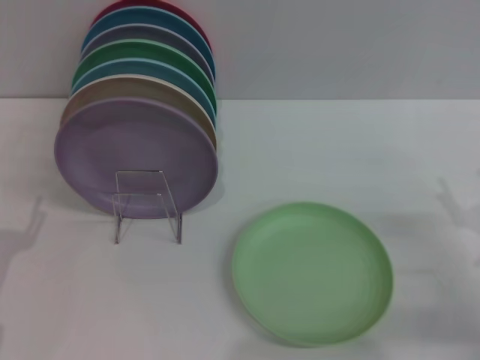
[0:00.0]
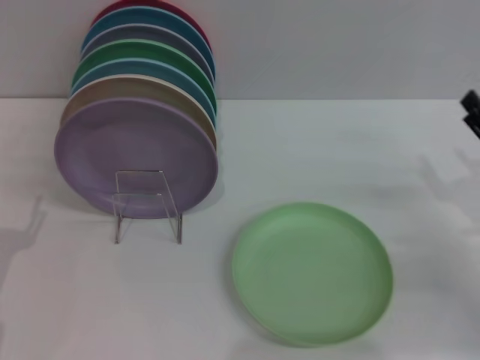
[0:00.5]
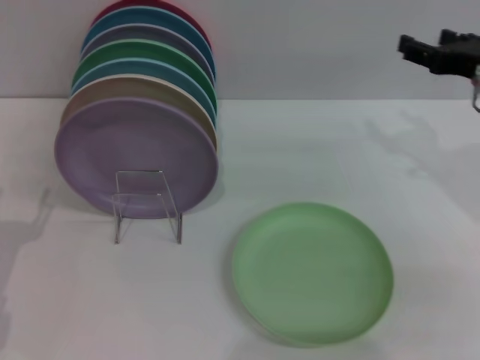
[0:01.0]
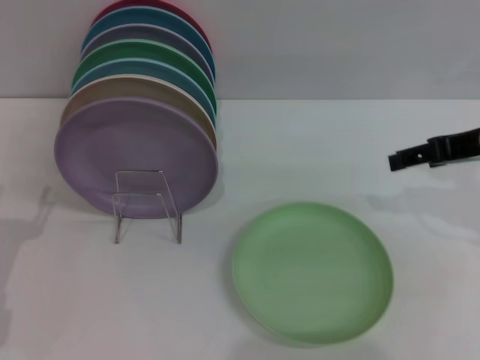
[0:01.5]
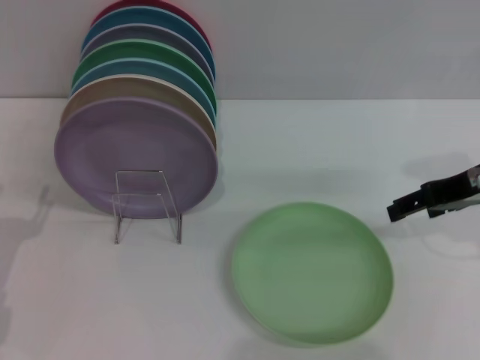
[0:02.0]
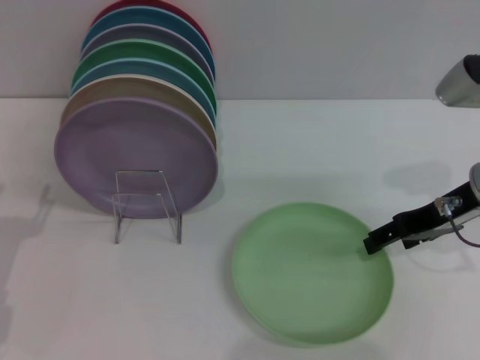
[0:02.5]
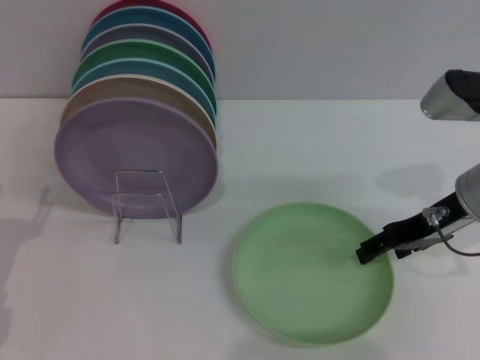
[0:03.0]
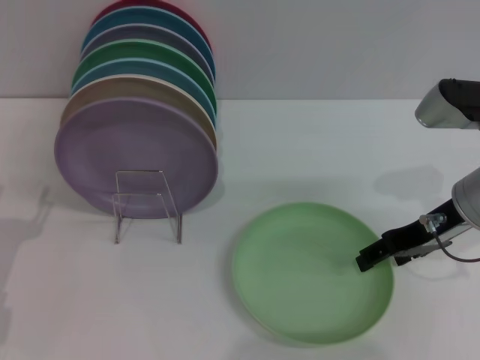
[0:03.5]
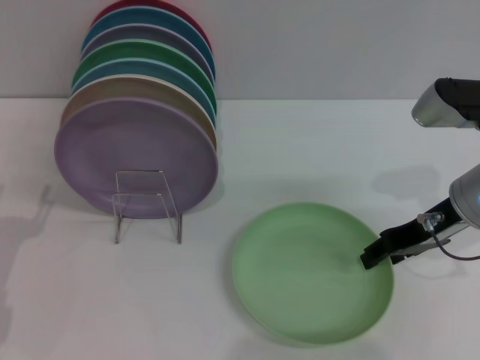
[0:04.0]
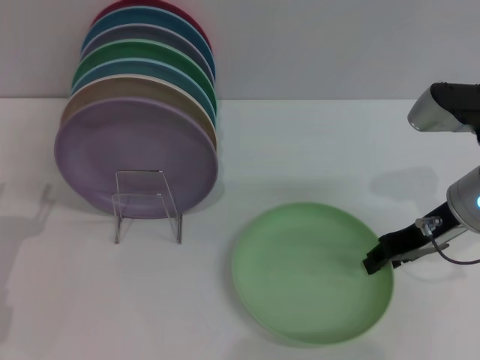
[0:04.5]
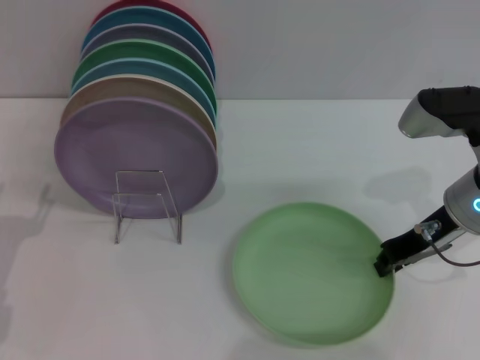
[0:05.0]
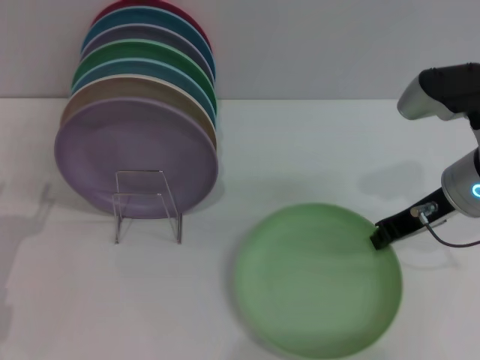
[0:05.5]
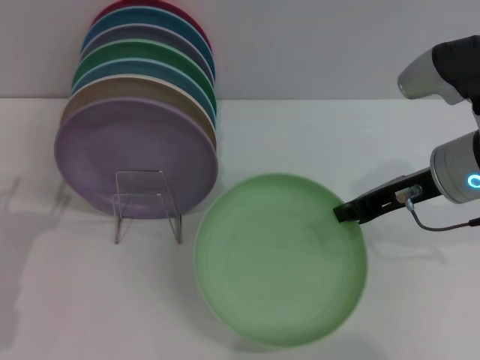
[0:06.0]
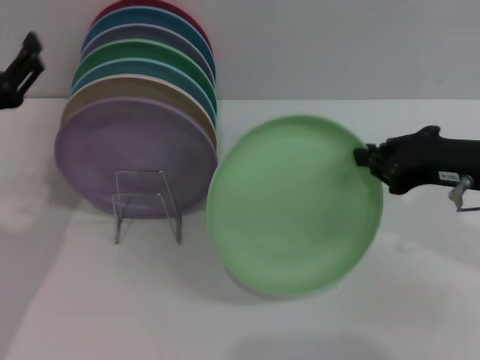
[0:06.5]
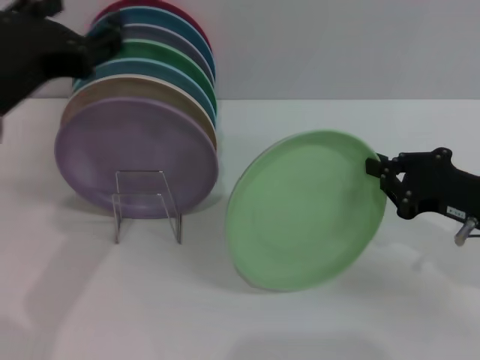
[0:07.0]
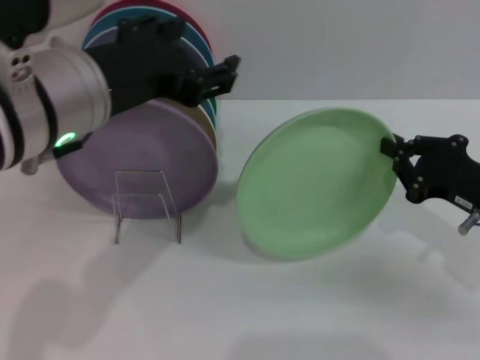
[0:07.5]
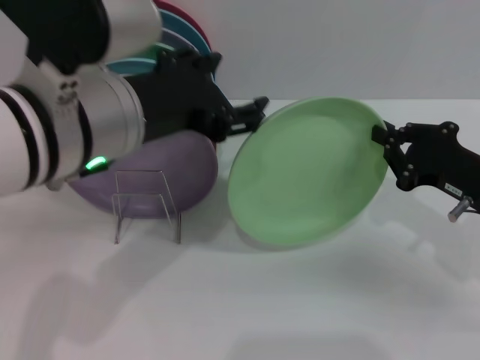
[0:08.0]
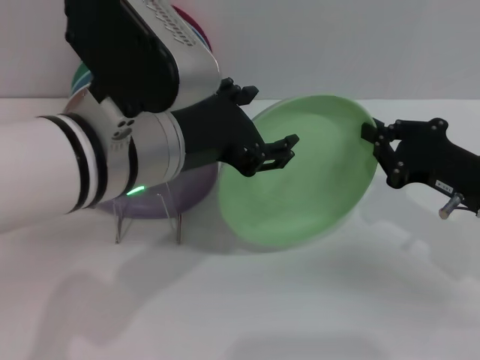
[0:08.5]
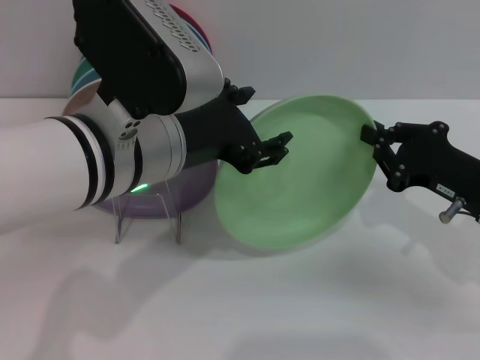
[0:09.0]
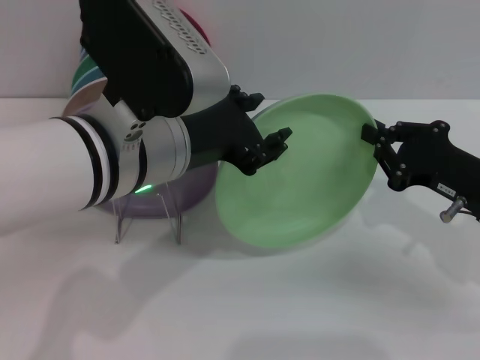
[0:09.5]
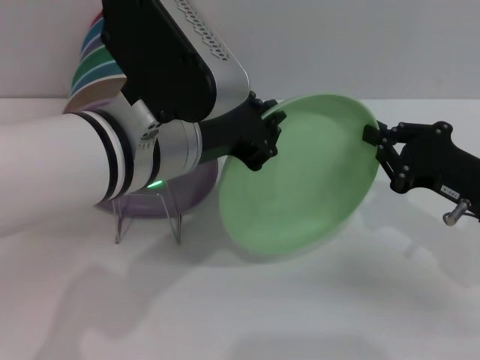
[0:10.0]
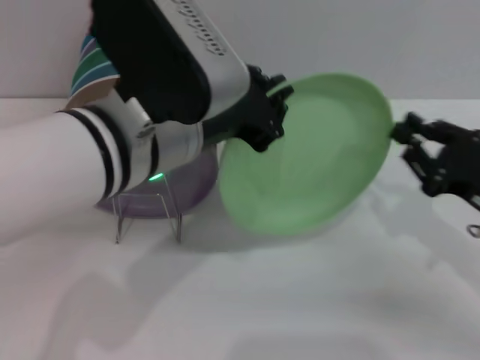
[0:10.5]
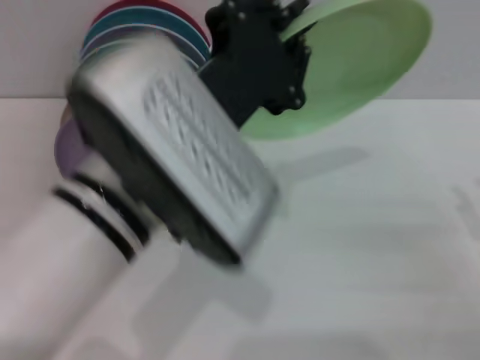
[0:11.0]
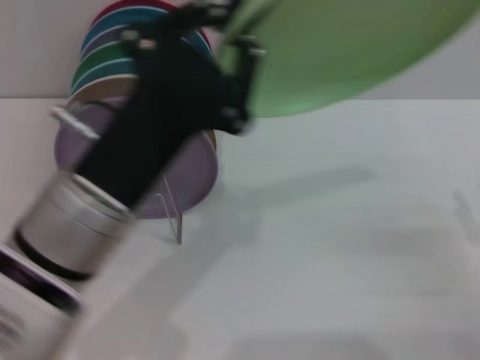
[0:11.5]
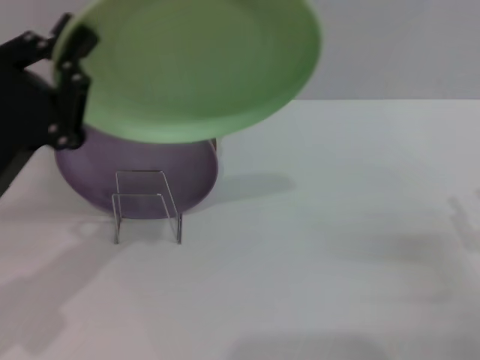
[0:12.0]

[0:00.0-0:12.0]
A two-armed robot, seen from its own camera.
Task of the whole recording: Grip the plate with one hand, pass it to the other, then set it on the shelf.
Step, 0:00.0 to 0:07.0: Pick up the plate with the right gripper.
Step, 0:07.5 to 0:10.5: Pass the plate from the right gripper to the left gripper.
0:00.0 to 0:02.0: The right gripper goes roughly 15 cm upward and forward.
0:02.0 to 0:04.0: The right gripper is displaced downward by about 5 cm.
0:04.0 to 0:06.0: The right gripper closes.
0:06.0 to 0:08.0: The left gripper is displaced upward and to the right by approximately 25 cm. The right gripper heads downward and to the right, covering about 10 cm.
0:08.0 to 0:10.0: The left gripper closes up.
0:10.0 to 0:12.0: The right gripper moves backward and to the right, about 10 cm, and opens up, while the left gripper travels to the left and downward by about 20 cm.

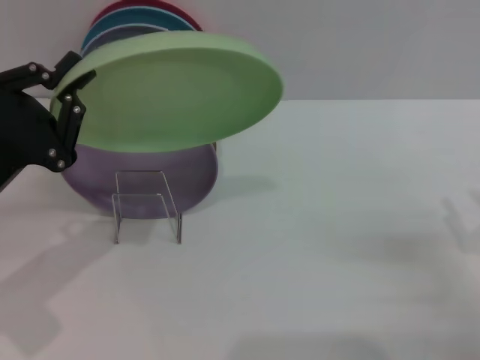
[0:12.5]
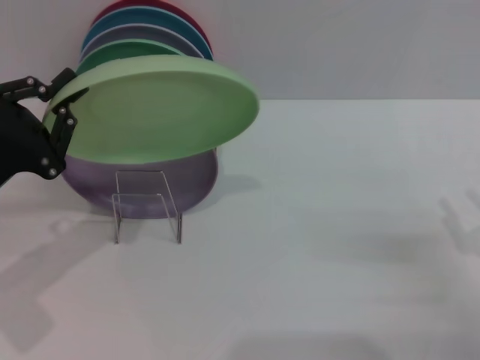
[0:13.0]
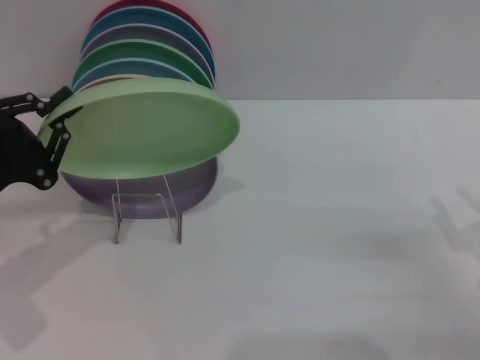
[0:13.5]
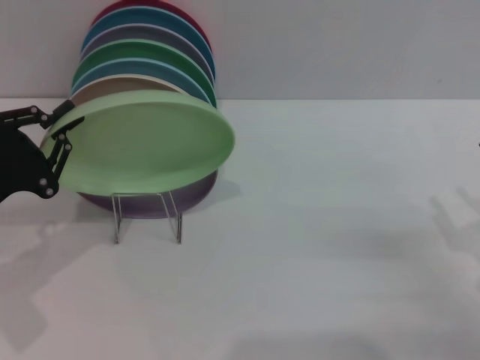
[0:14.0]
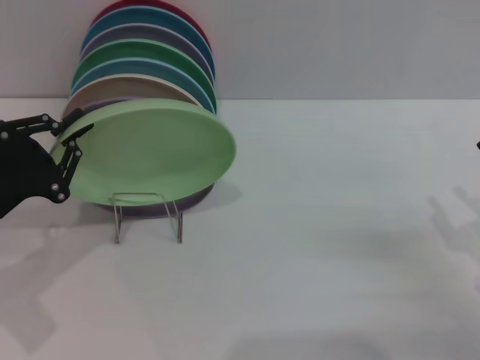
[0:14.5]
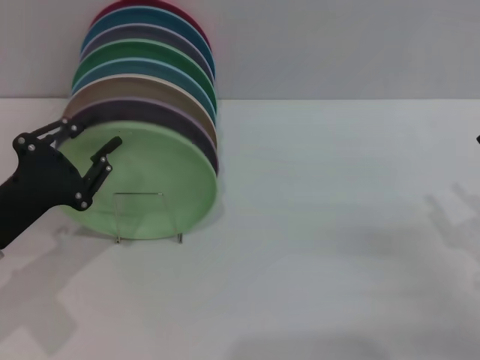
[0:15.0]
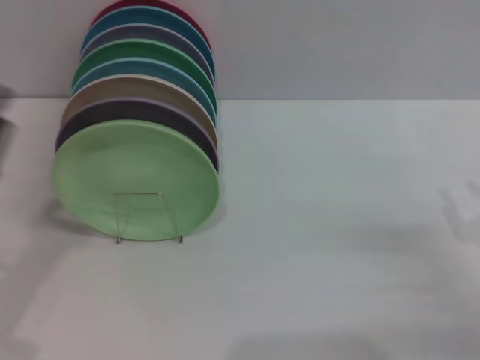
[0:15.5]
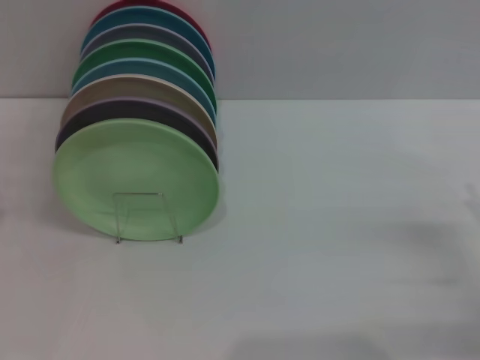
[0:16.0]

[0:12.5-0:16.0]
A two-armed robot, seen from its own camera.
Task of the whole recording: Grip the plate with one hand, pass it to the other, then set it on the shelf.
Step, 0:12.5 to 0:15.0: Place the plate on the shelf with the left gripper.
0:12.5 to 0:14.5: There are only small adjustments of the grippers.
0:14.5 to 0:16.0: The left gripper moves backward, roughly 5 cm, and opens up.

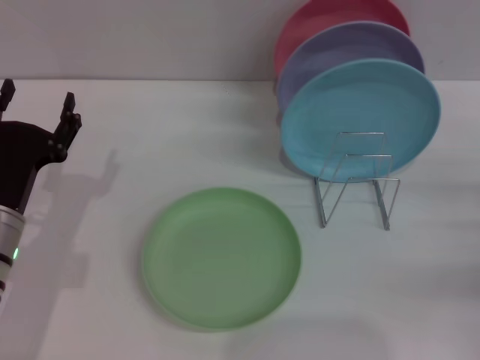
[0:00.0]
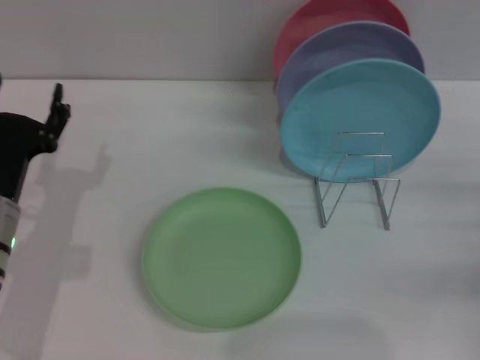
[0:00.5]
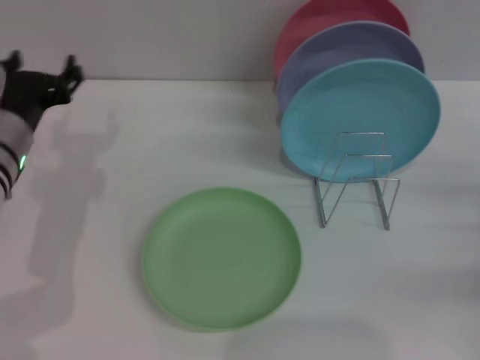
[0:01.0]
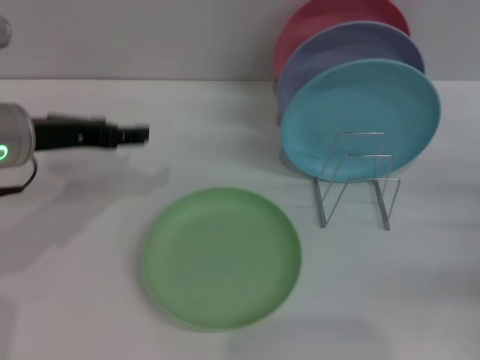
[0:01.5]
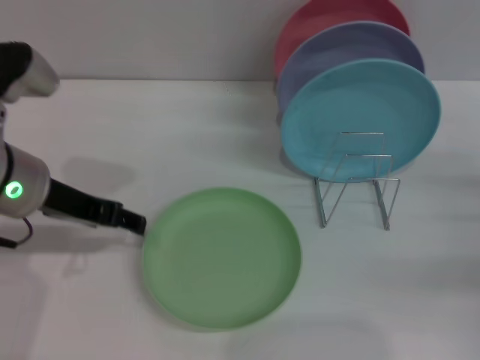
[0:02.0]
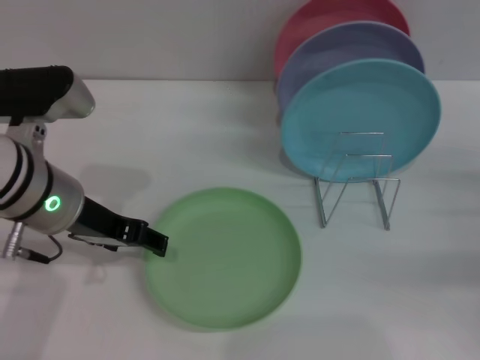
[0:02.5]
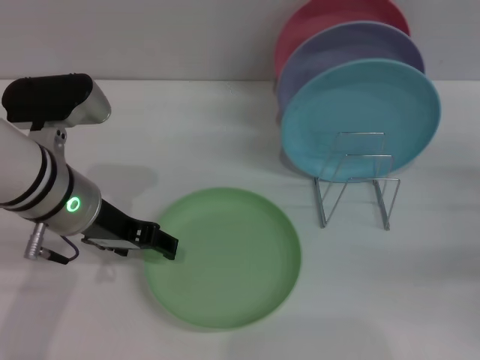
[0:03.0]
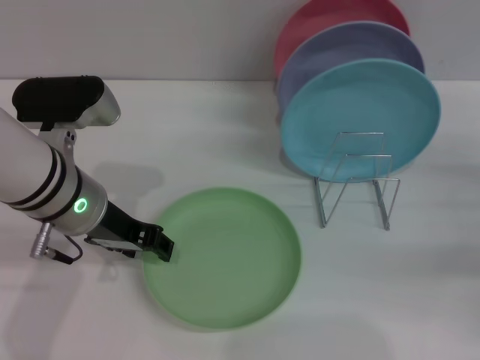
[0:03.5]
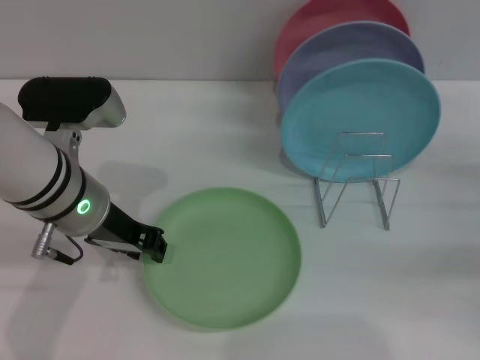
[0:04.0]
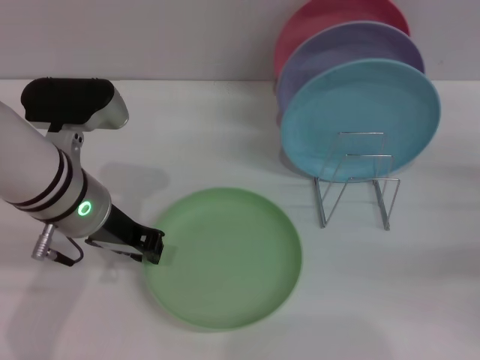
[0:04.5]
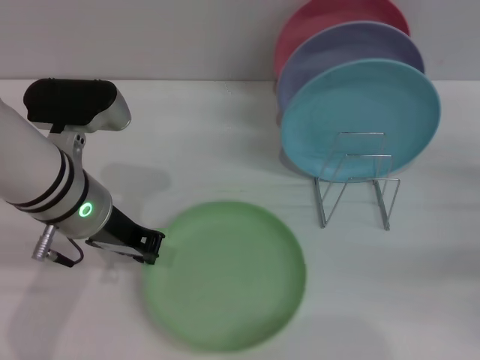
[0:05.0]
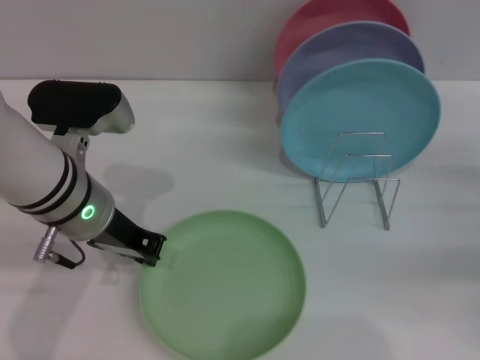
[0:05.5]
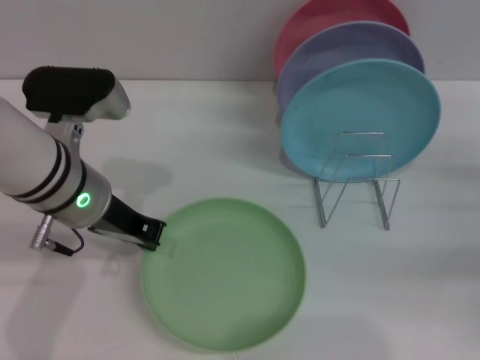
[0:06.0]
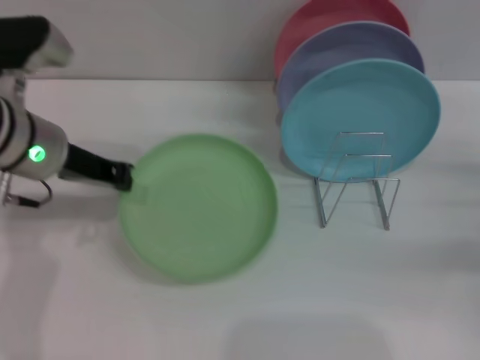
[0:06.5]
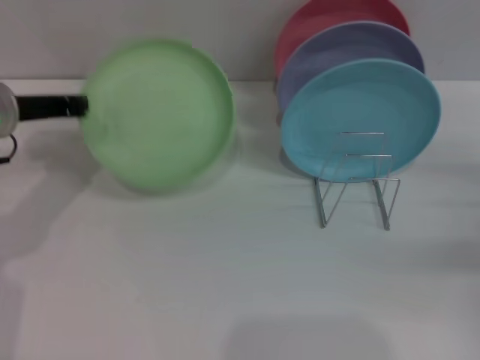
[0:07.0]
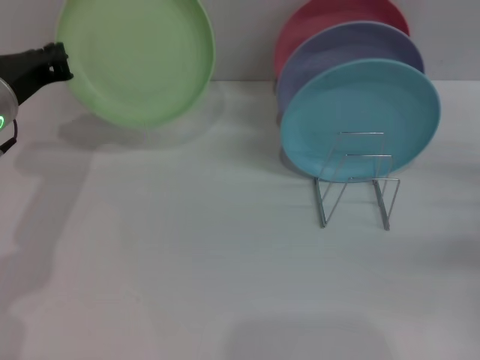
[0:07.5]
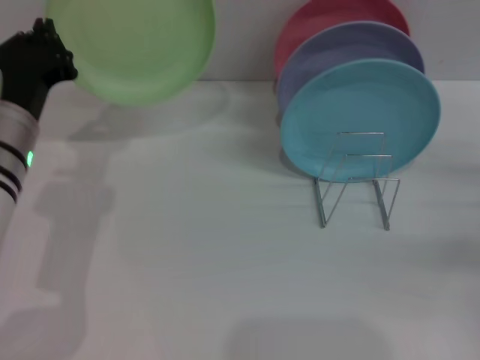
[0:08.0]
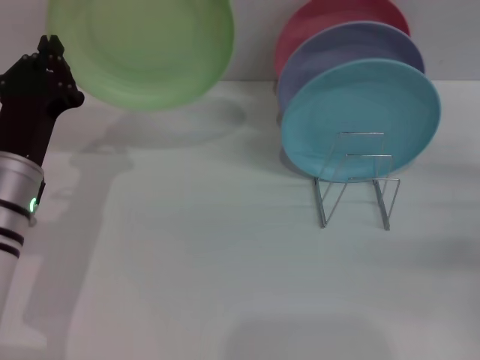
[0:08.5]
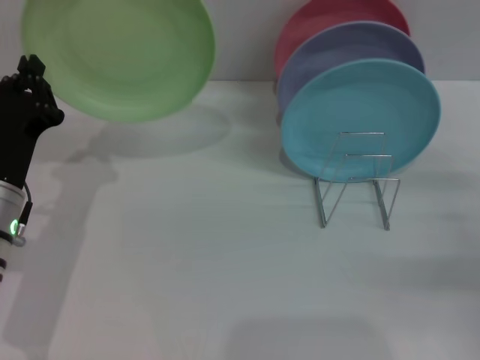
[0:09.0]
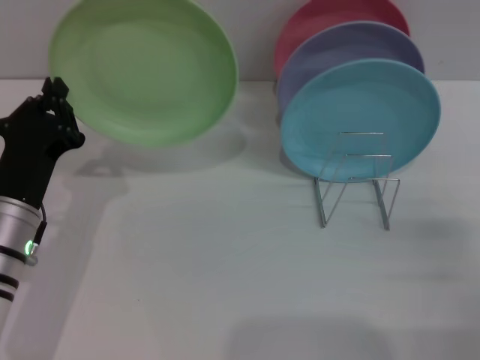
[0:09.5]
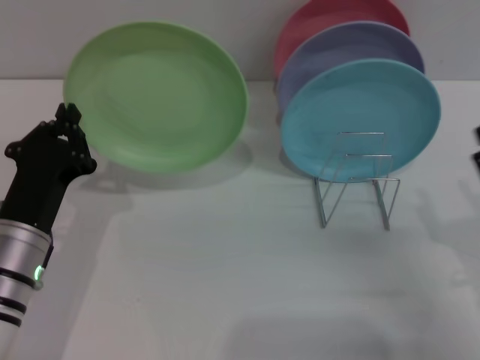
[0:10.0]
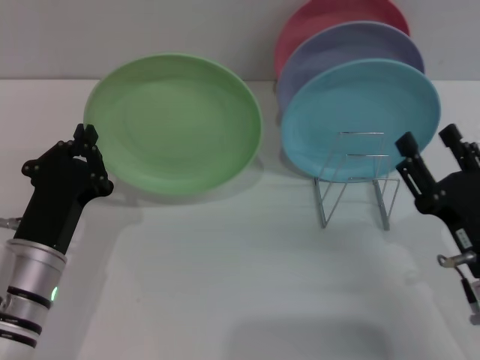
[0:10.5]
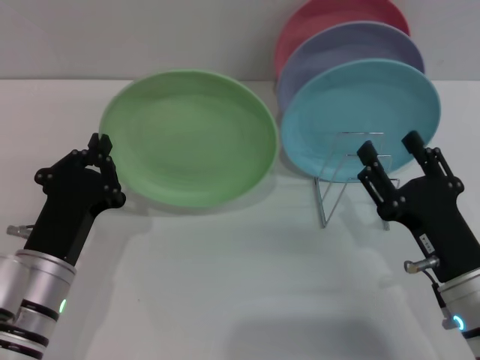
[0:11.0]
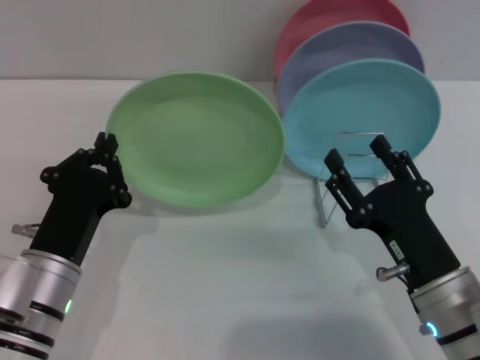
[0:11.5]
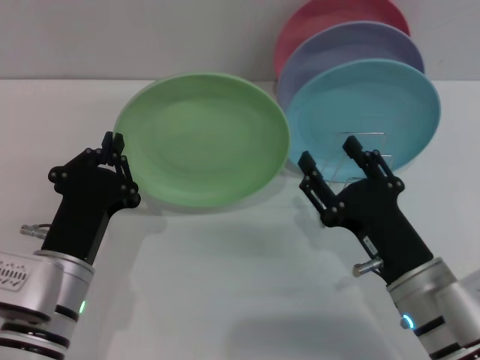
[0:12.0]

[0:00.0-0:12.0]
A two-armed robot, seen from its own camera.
Task of the whole recording: Grip the plate with one hand, pass it to the other, then set it on the shelf.
Step, 0:00.0 to 0:07.0: Pick up the plate with the left gripper.
0:00.0 to 0:02.0: The left gripper heads upward, covering approximately 15 cm.
0:02.0 to 0:04.0: The left gripper moves some 5 cm, and closes.
0:04.0 to 0:06.0: The left gripper closes up.
0:06.0 to 0:08.0: The left gripper travels to the left by approximately 5 cm.
0:08.0 to 0:10.0: The left gripper travels backward and downward by some 10 cm. The right gripper heads to the left and backward, covering about 15 cm.
0:10.0 to 0:12.0: The right gripper shifts roughly 10 cm to the left; the left gripper changes place by about 5 cm.
